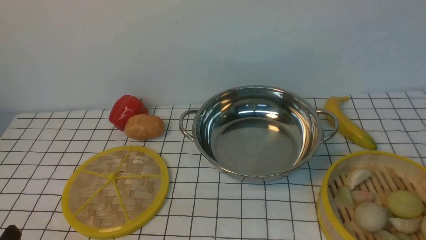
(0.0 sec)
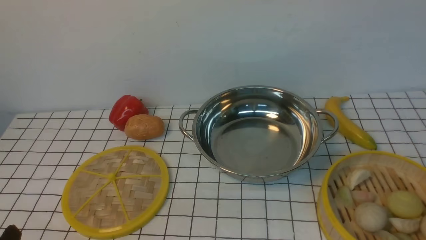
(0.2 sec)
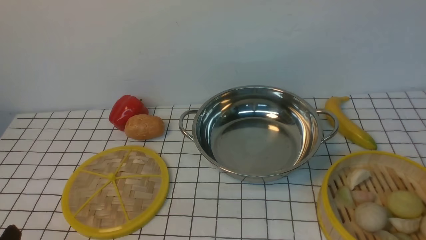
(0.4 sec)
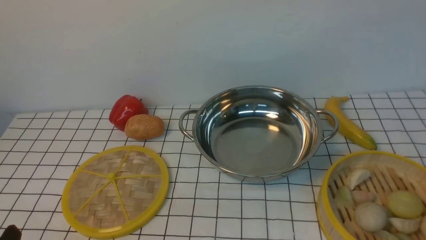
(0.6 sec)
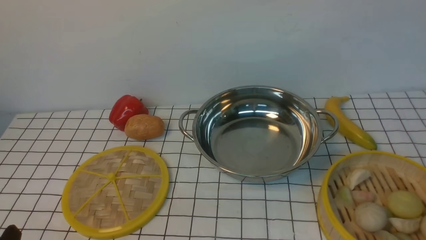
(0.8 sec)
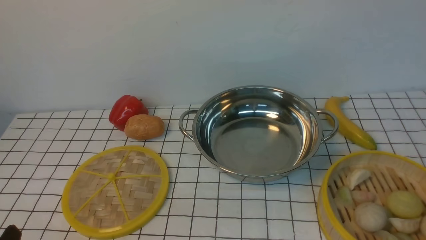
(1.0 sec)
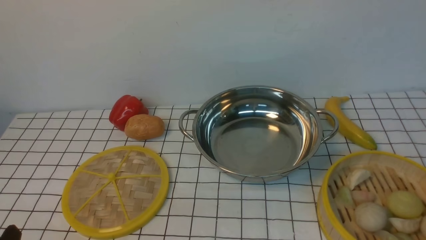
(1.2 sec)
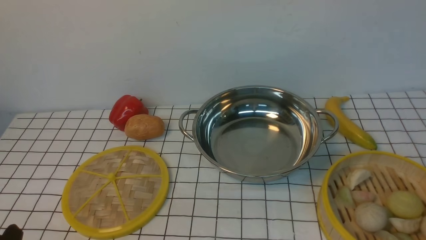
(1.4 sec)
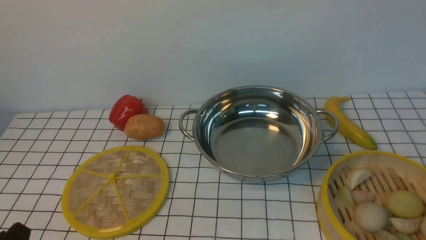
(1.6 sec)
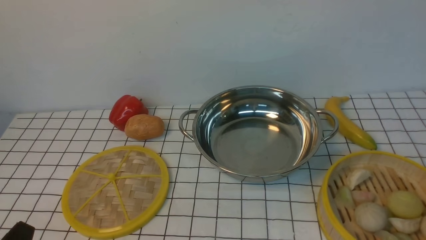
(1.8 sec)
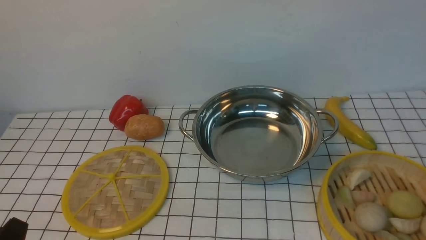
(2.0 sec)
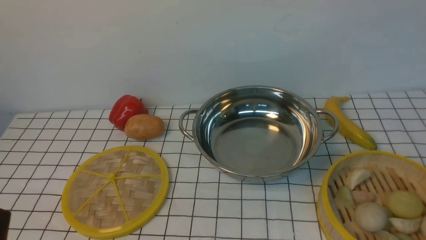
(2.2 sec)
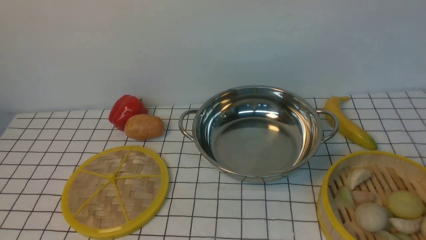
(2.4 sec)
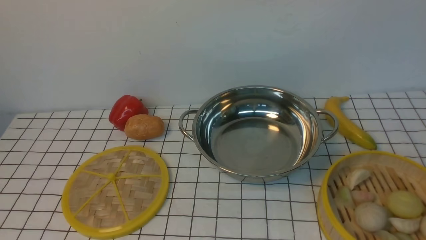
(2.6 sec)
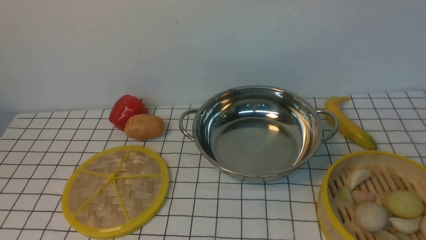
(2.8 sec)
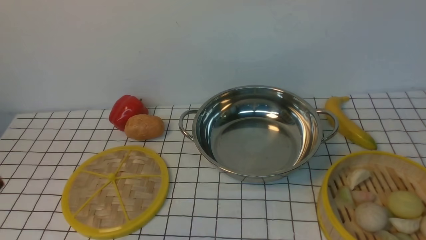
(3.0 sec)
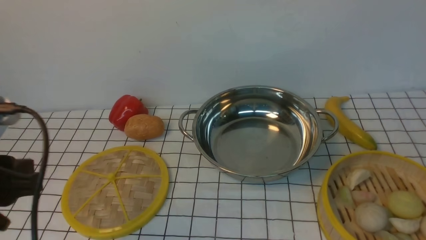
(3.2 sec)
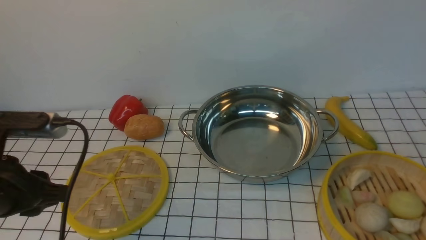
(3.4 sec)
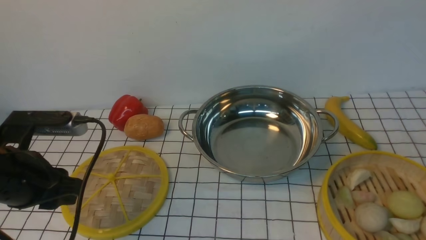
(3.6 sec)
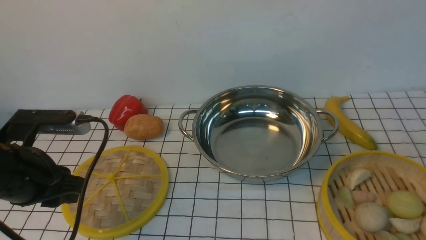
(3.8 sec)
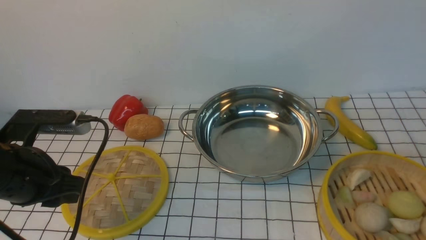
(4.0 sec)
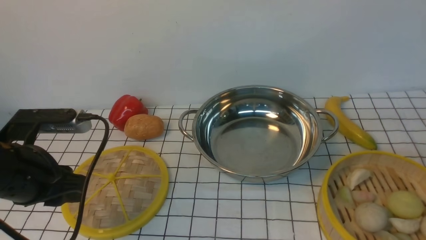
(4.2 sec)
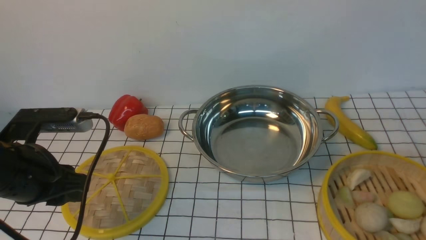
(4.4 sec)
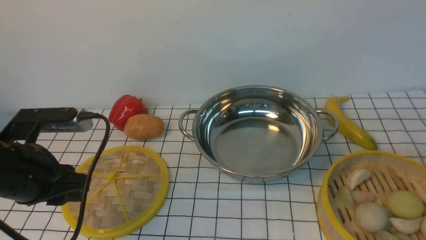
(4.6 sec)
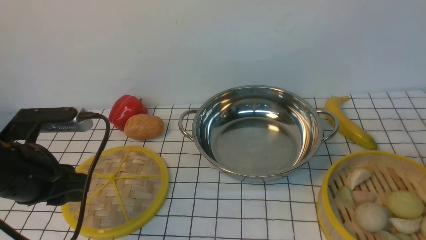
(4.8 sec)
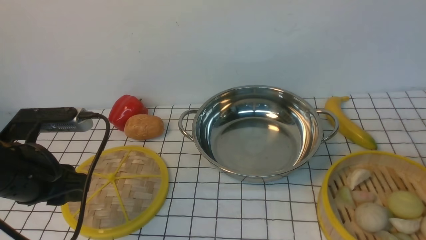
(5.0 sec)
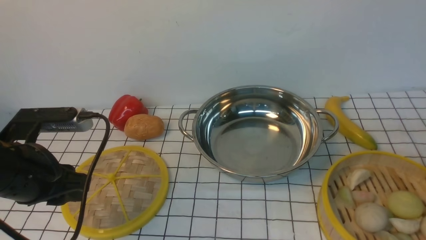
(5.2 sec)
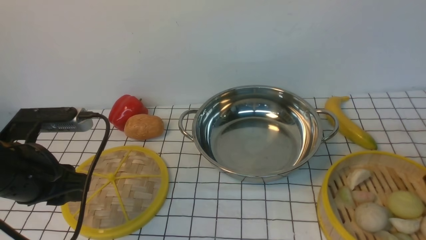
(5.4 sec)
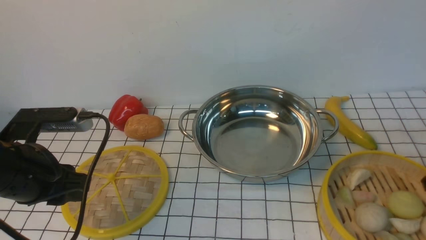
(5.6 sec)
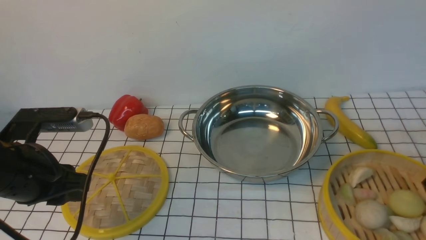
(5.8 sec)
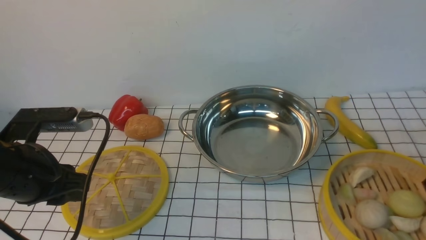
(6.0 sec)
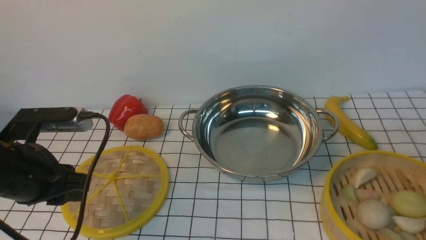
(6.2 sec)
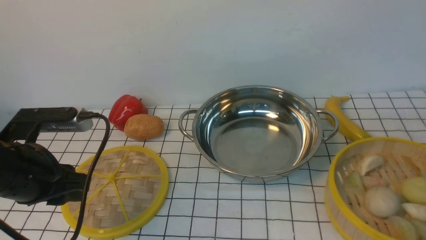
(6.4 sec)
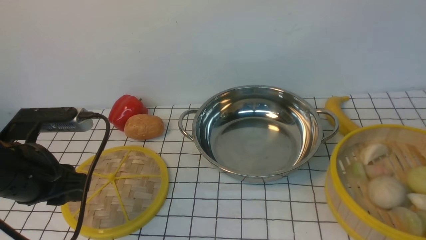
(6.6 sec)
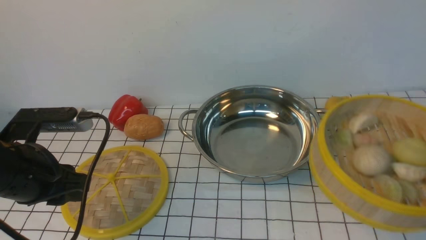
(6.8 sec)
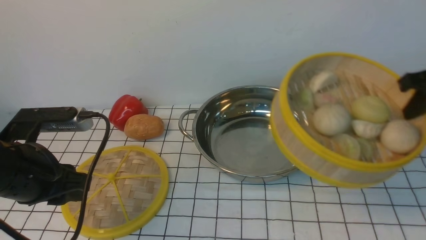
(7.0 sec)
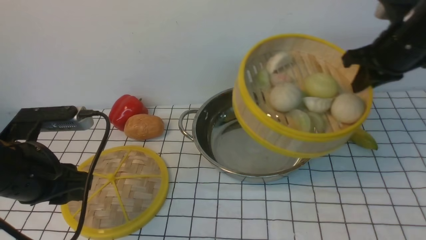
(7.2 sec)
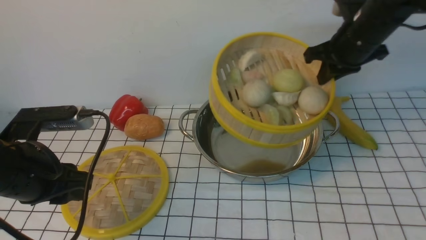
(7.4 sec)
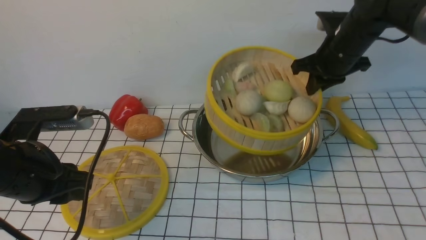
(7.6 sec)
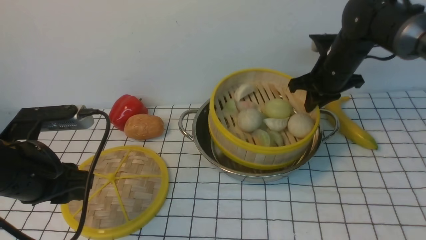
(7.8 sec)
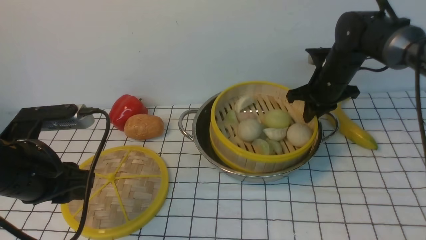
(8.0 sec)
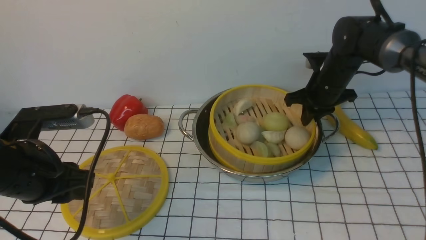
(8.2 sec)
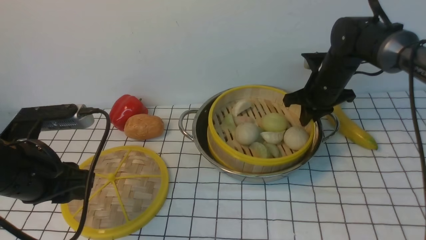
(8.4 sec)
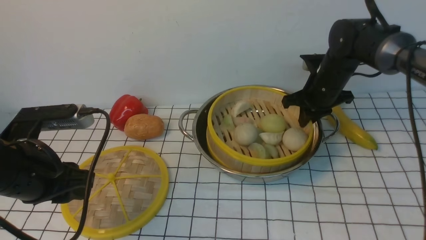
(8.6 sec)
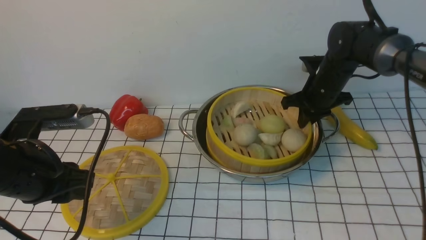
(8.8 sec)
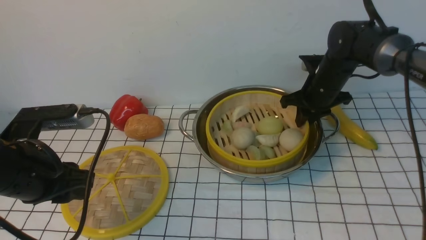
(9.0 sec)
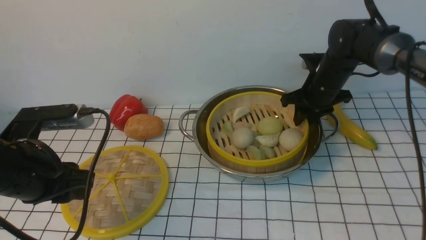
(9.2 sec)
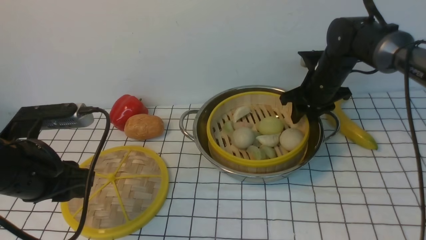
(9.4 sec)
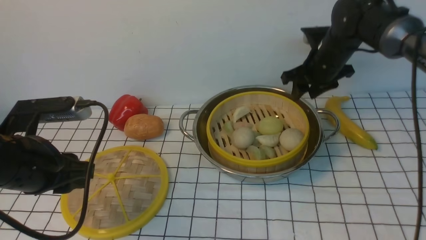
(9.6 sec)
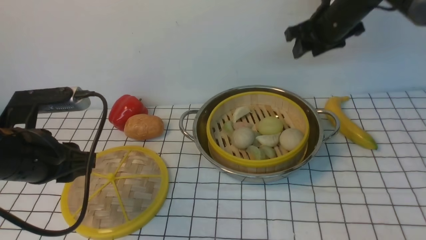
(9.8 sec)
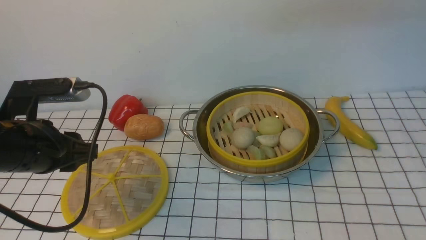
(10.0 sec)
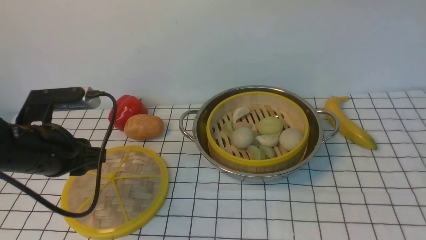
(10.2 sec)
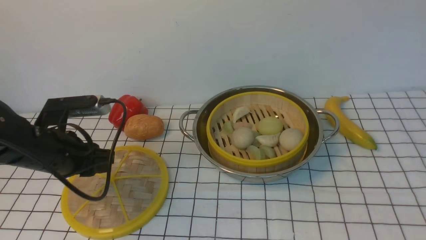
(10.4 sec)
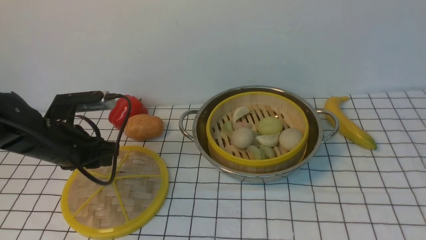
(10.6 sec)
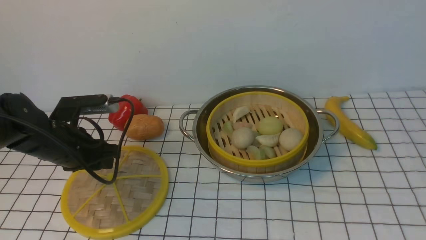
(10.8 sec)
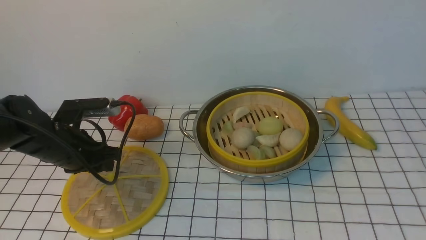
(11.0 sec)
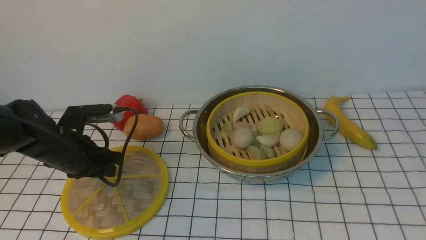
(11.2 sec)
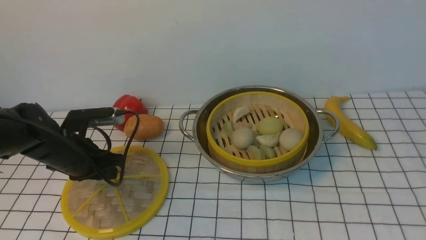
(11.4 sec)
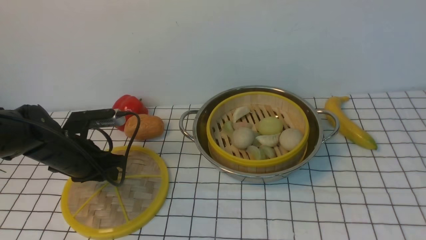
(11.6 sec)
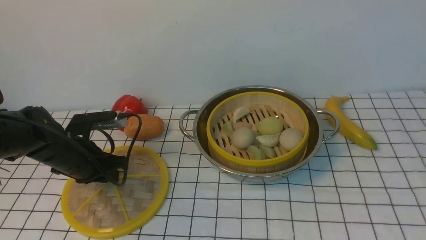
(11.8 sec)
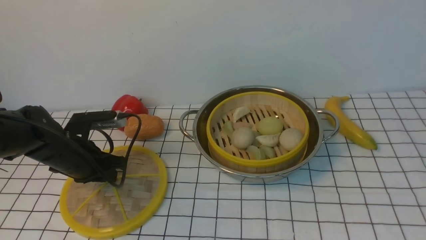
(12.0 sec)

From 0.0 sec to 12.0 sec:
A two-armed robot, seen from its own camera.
Task of the whole recording: place the steamer in the pot on the white tablecloth, and put the lid on the steamer.
Step, from 0.0 sec to 6.6 sec: use the right arm to lift the steamer closest to it.
Step, from 6.8 sec to 9.6 sec: use the right arm to put the steamer into the iron steamer pot in the middle.
From 3.0 sec to 4.4 sec: The left gripper is displaced forward and downward by approximately 15 cm.
From 4.4 sec to 6.0 sec: The right gripper goes approximately 5 cm downward, and closes up.
From 6.0 sec to 7.6 sec: The right gripper heads forward, to the left and upward, covering some 25 cm.
From 7.6 sec to 9.0 sec: The right gripper is displaced downward by some 5 cm.
From 9.0 sec to 10.4 sec: The right gripper goes about 60 cm upward and backward, and opens up. Meanwhile the left gripper heads forward, covering about 5 cm.
From 10.4 sec to 12.0 sec: The left gripper changes place by some 5 cm.

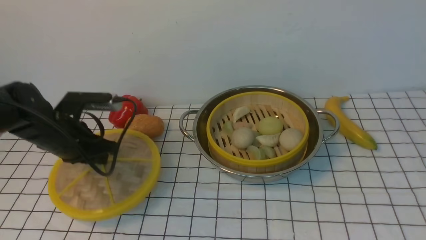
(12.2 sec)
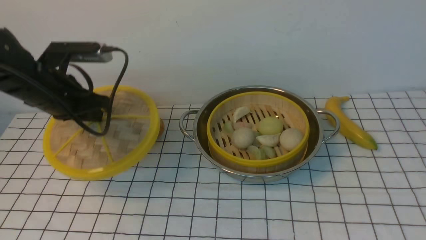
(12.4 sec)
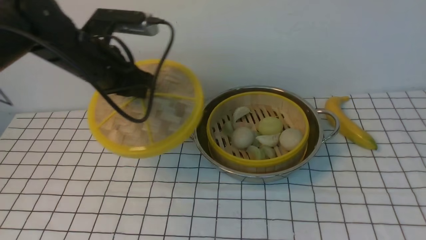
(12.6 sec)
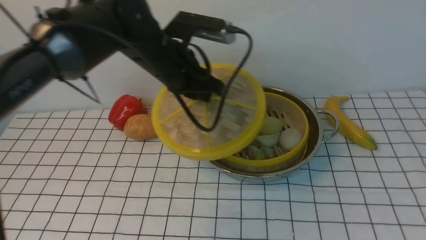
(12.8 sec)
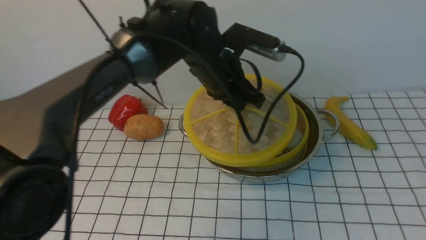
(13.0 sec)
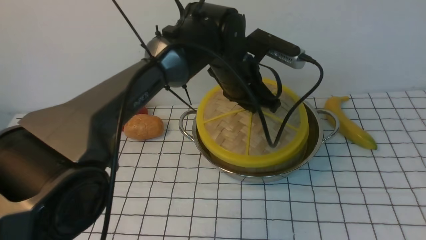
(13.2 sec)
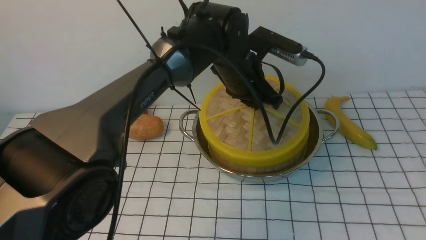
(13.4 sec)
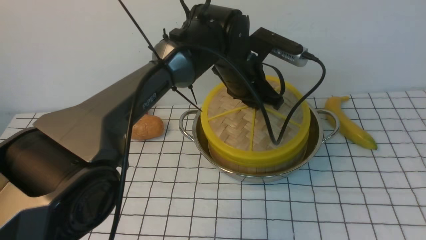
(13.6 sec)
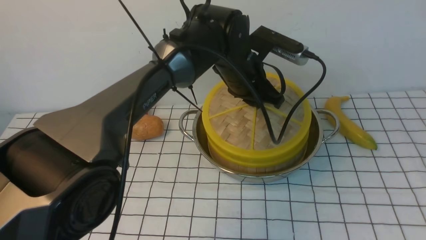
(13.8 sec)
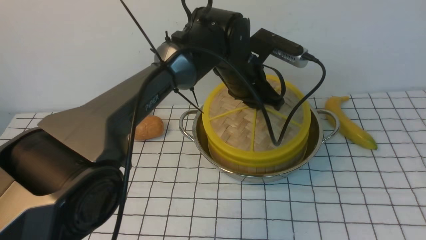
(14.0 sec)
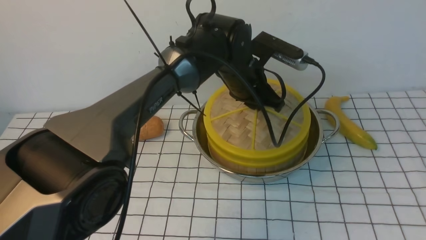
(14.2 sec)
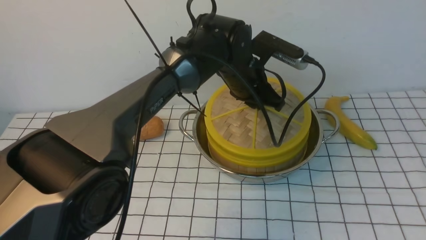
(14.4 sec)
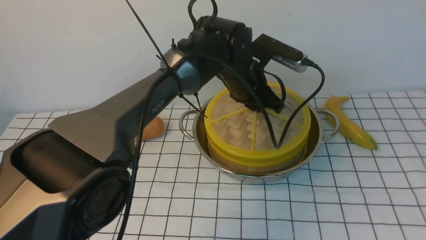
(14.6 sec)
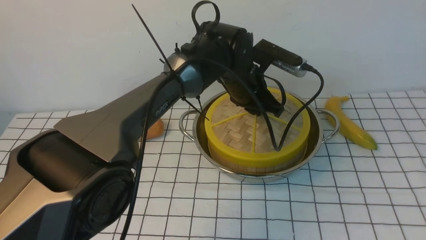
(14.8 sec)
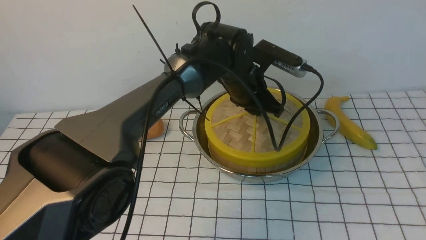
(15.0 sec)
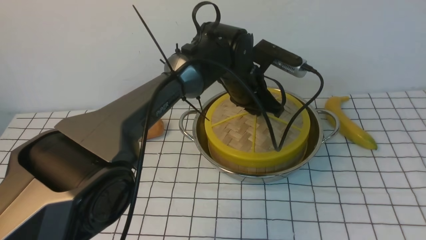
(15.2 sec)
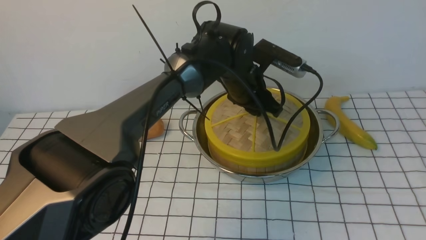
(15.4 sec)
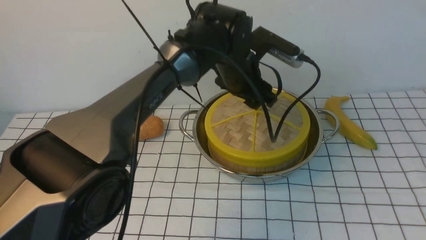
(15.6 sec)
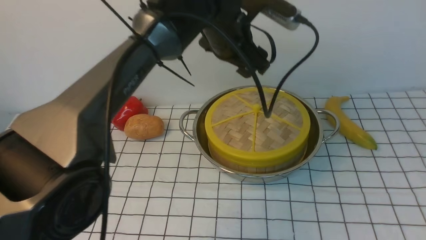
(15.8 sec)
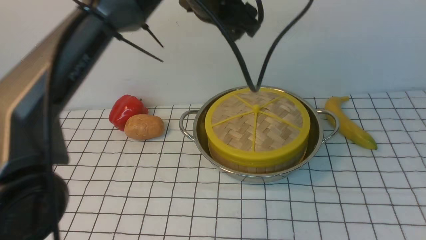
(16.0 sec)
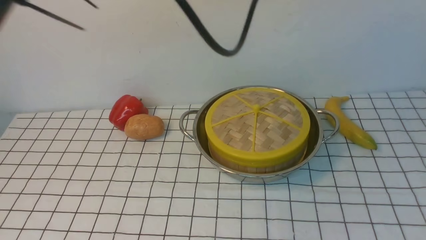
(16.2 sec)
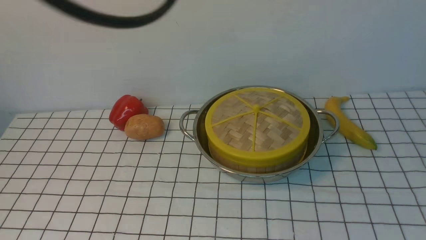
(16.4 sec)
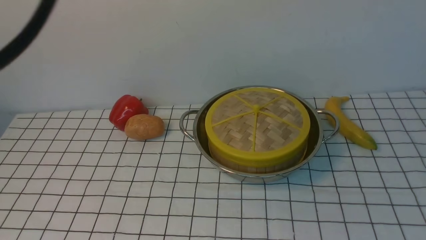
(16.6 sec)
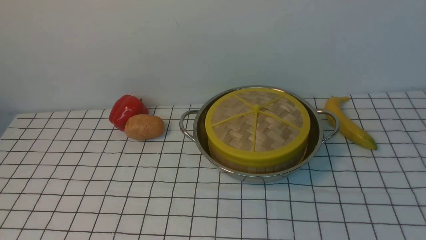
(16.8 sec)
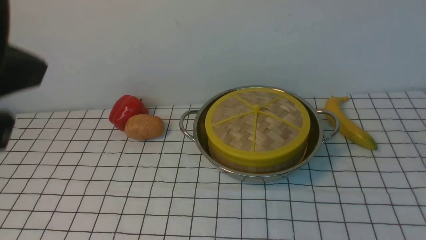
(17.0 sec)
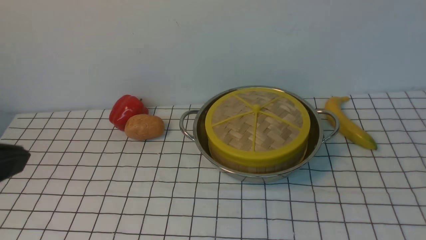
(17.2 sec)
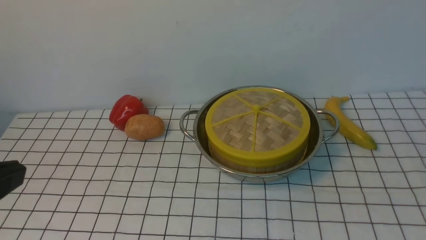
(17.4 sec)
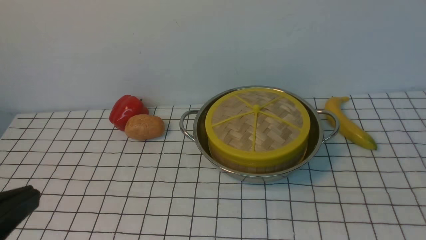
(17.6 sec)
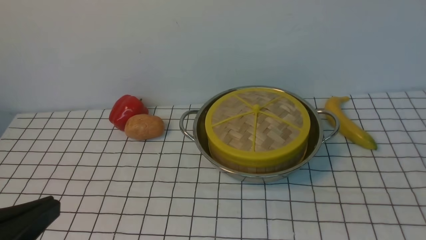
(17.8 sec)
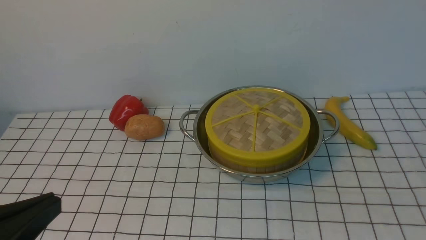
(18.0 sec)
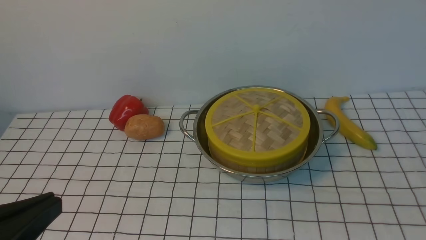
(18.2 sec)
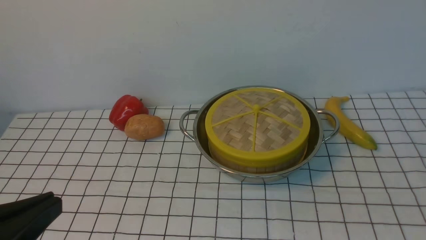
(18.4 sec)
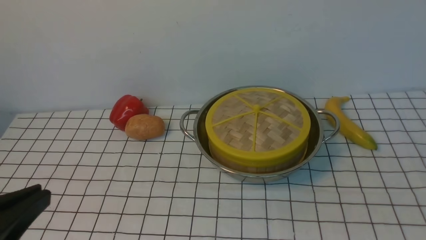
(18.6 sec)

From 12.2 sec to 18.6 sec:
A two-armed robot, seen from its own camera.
Task of the whole recording: place the steamer in the pot on the white tablecloth, and put the lid on the steamer.
Step, from 12.4 sec to 15.6 sec: use the left arm to place the steamer lid on the steamer.
From 12.2 sec to 13.8 sec: The left gripper shifts approximately 30 cm to the right.
From 15.4 sec to 17.0 sec: The right gripper moves downward, roughly 10 cm, and closes, while the left gripper shifts approximately 40 cm backward, upward and to the left, and closes.
From 17.0 sec to 18.6 sec: The left gripper heads downward, covering about 15 cm.
